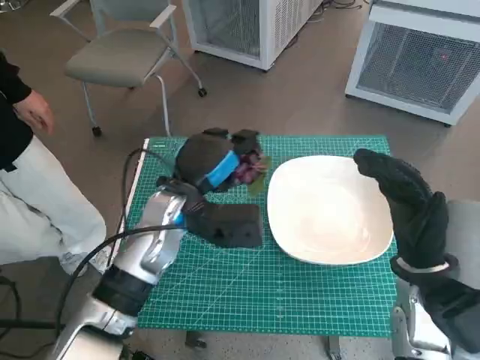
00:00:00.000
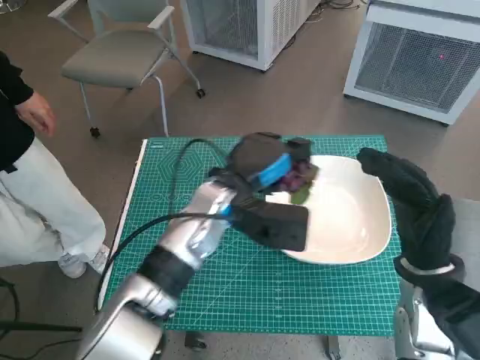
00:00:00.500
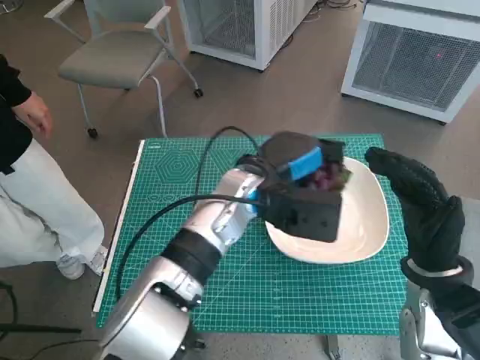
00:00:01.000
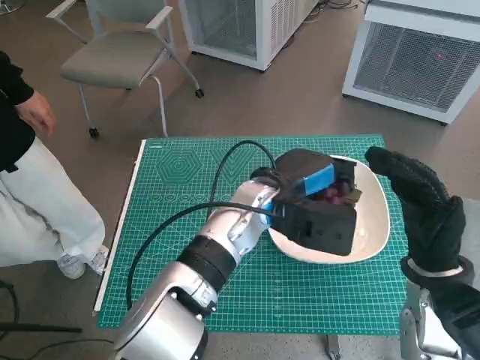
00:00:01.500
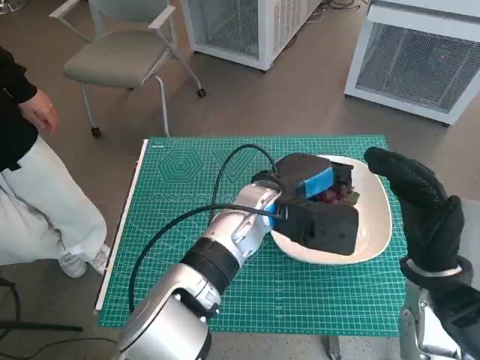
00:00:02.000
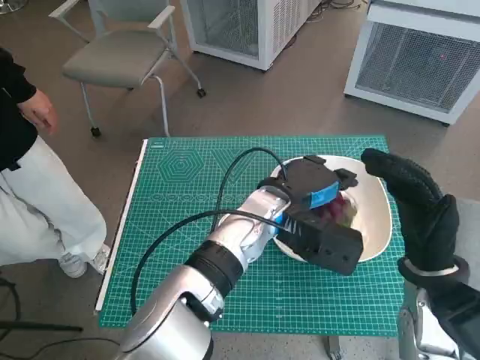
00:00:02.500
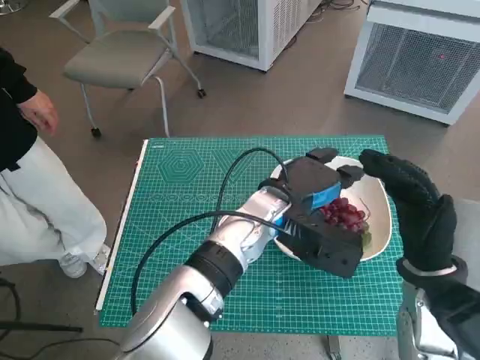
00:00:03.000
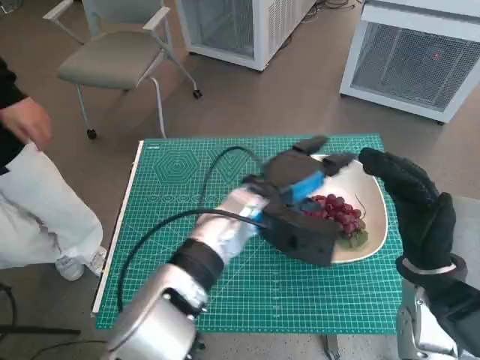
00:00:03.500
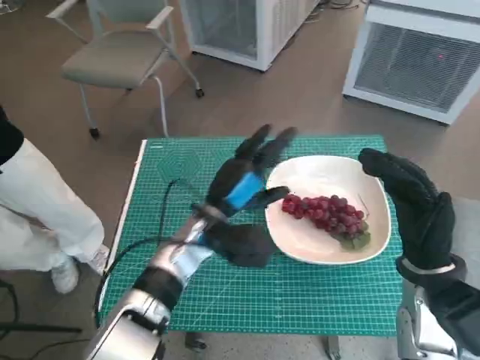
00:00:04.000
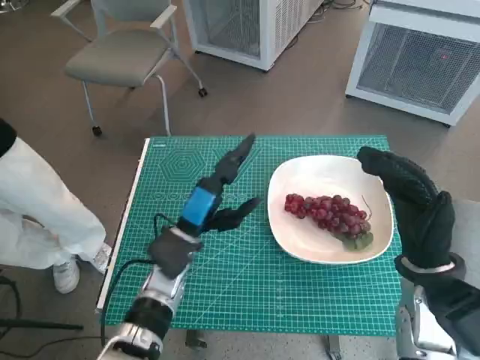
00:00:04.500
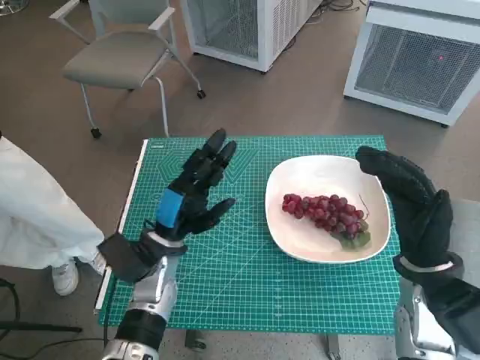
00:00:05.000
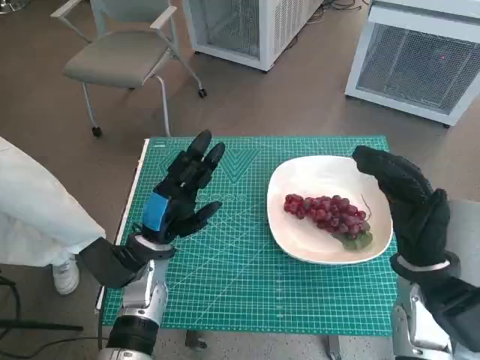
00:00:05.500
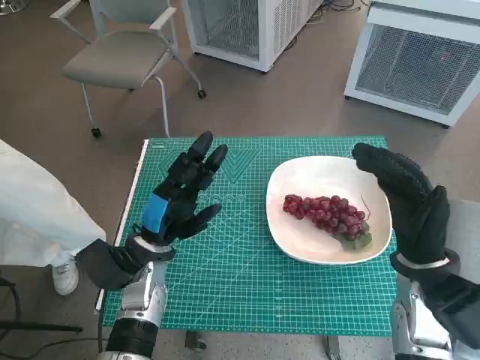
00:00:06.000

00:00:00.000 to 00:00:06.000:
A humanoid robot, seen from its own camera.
Task of the whole recording: Pick up the grapes and put them on the plate.
Step, 00:00:00.000 to 00:00:03.500: Place the grapes in the plate with left hand.
00:00:00.000 to 00:00:02.000: The left hand shifts roughly 10 cm to the right.
00:00:02.000 to 00:00:04.000: The left hand is displaced to the left and downward by about 10 cm.
00:00:04.000 to 00:00:06.000: The left hand is displaced to the left by approximately 10 cm.
